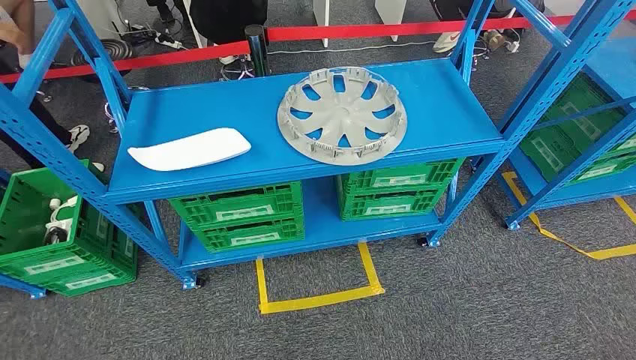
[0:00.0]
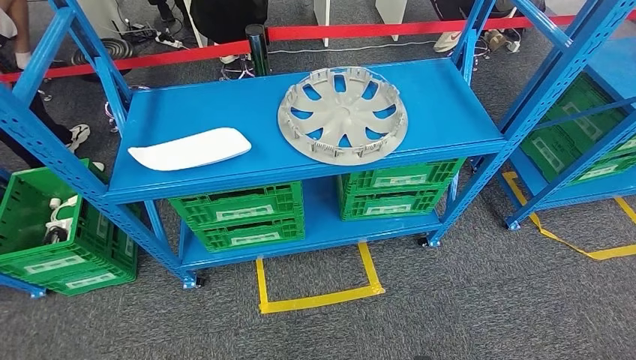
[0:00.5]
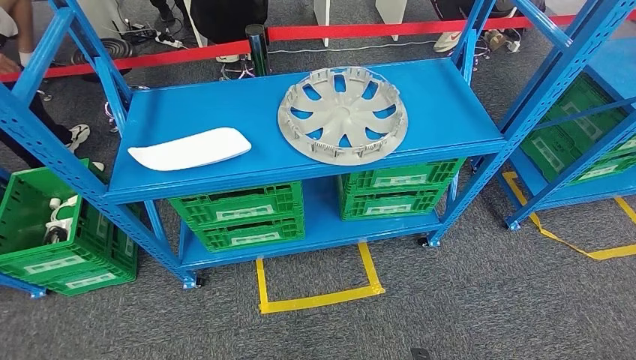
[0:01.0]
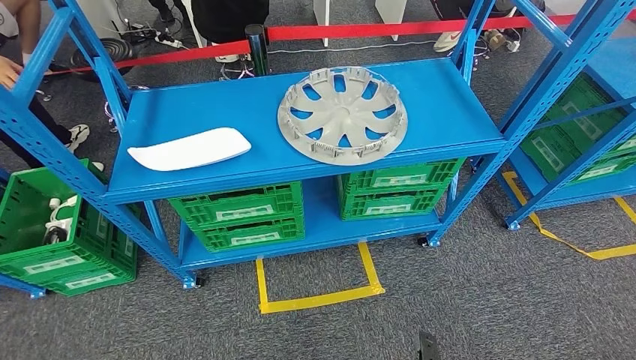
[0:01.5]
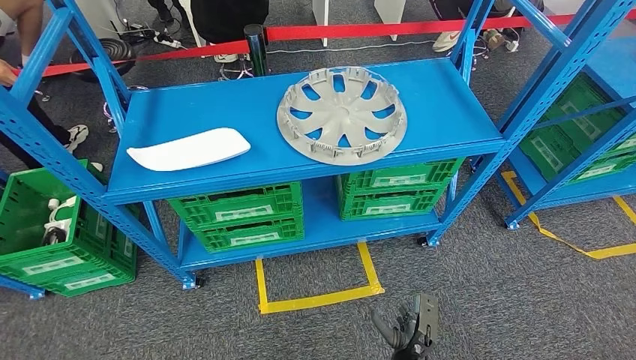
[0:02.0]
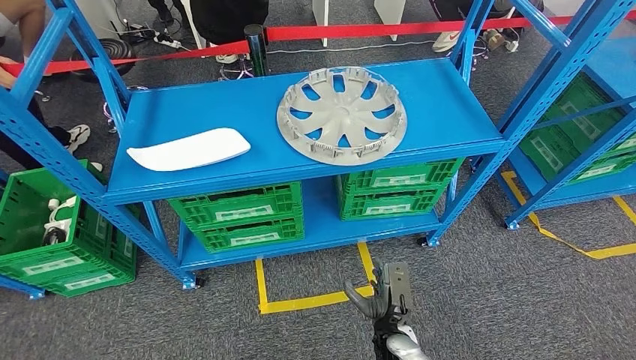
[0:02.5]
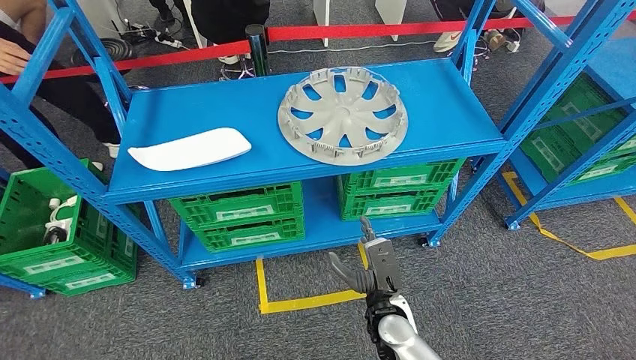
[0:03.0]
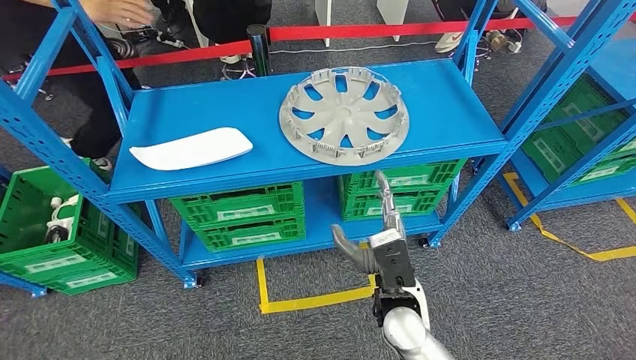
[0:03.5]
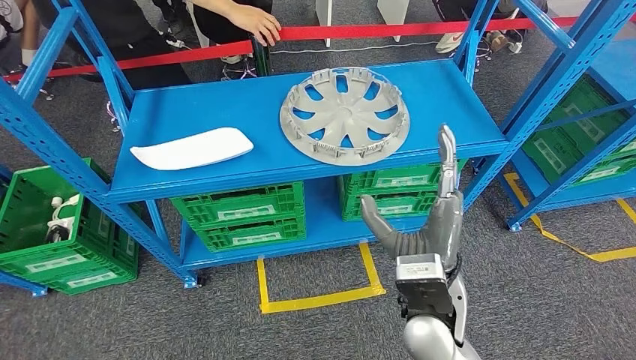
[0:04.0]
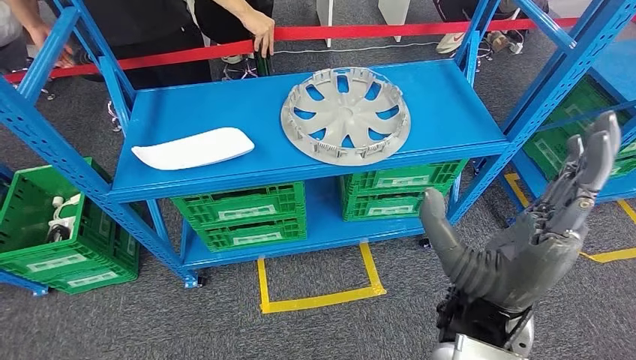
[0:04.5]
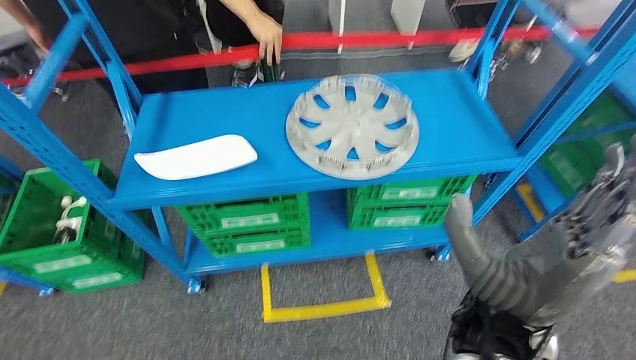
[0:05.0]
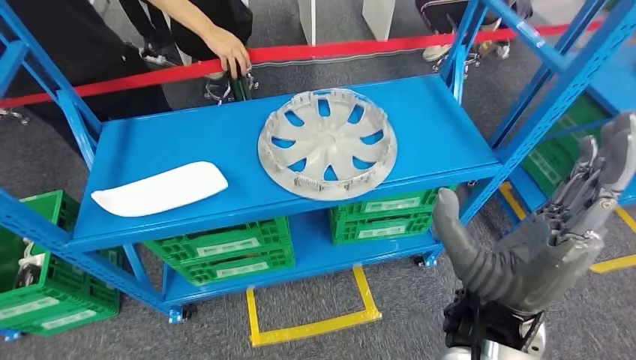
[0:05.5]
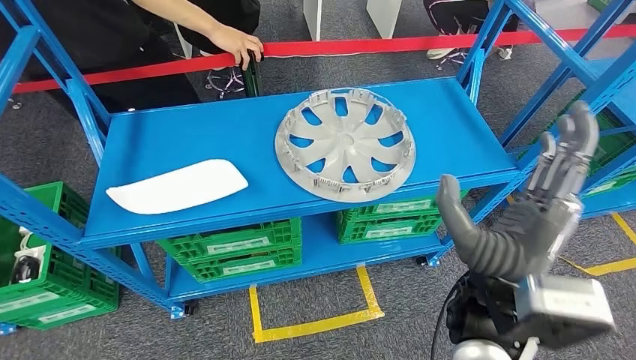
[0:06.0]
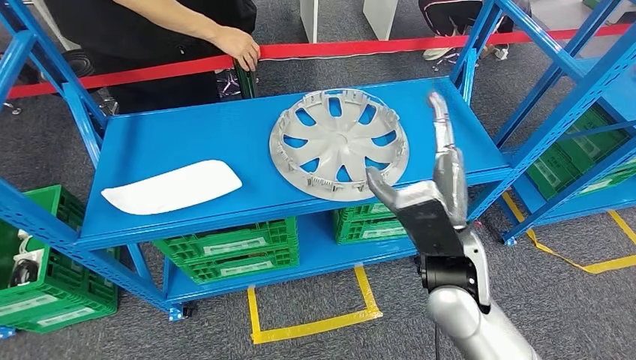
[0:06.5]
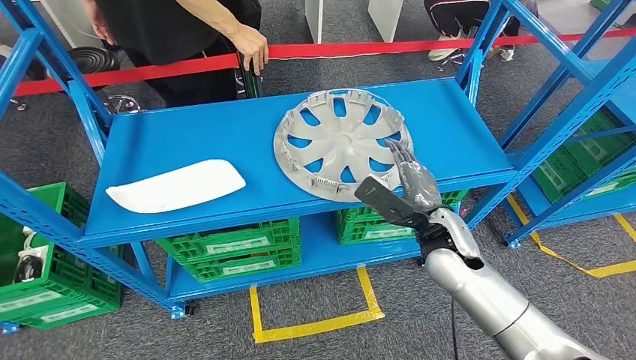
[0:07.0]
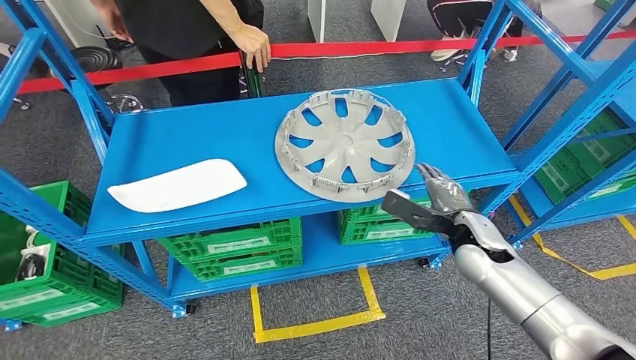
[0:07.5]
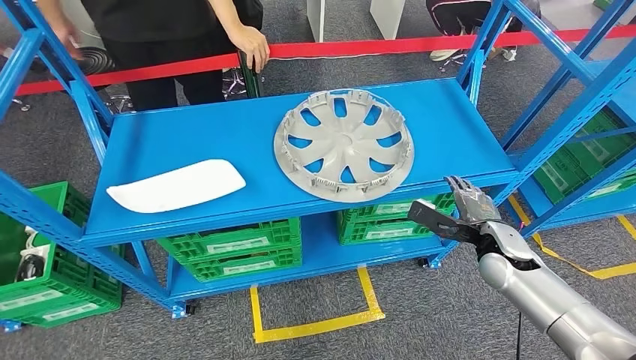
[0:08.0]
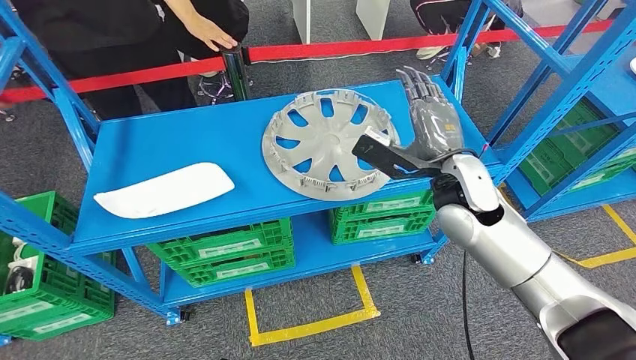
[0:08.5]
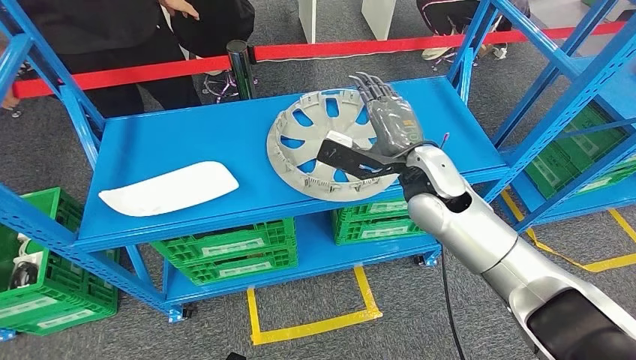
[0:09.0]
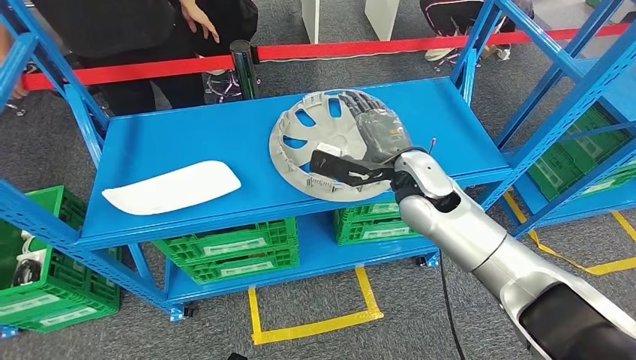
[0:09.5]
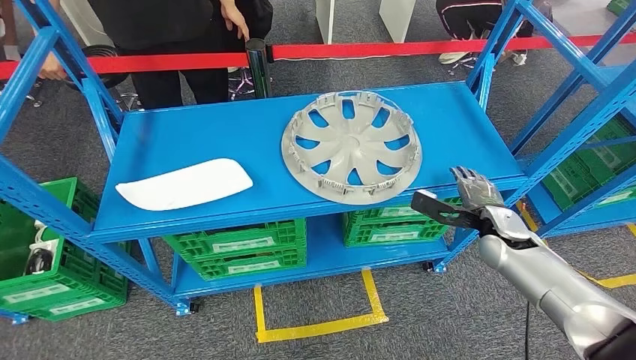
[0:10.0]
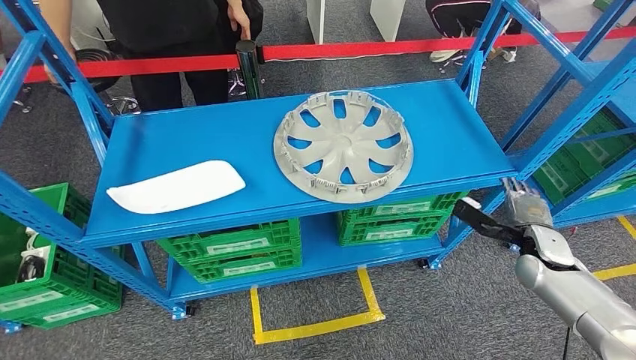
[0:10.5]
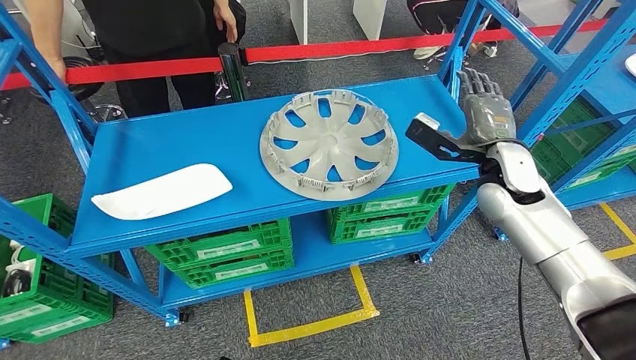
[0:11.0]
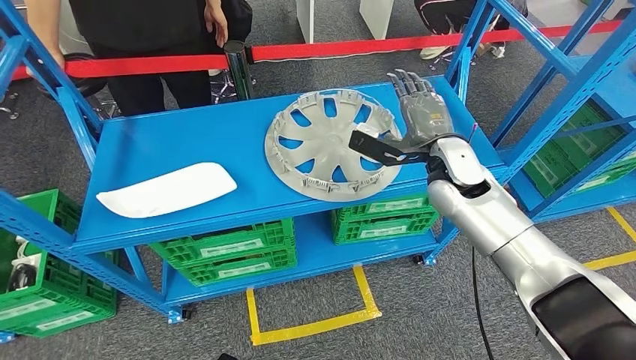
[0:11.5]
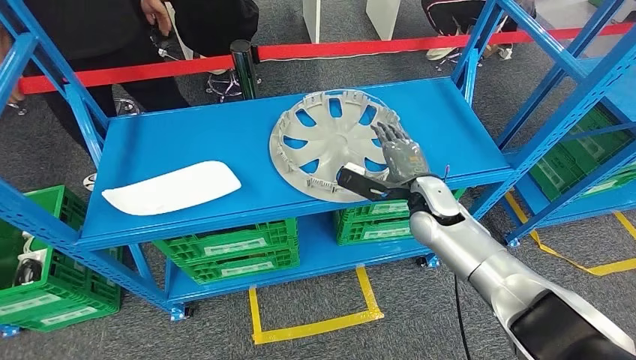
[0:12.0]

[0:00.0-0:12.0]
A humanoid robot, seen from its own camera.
0:02.0 to 0:04.0: The right hand moves upward, some 30 cm.

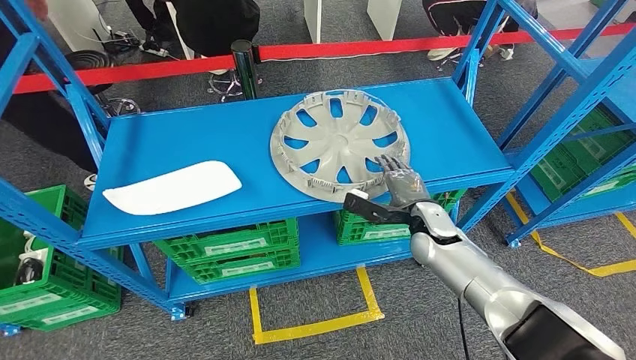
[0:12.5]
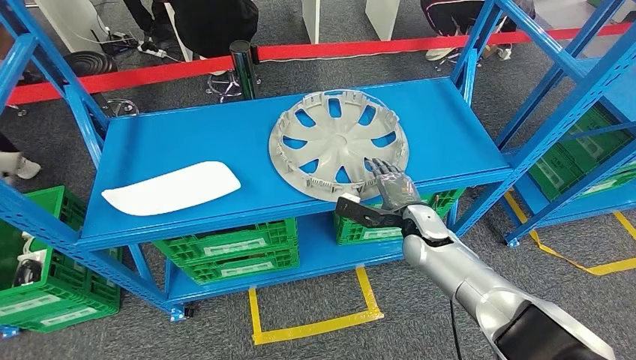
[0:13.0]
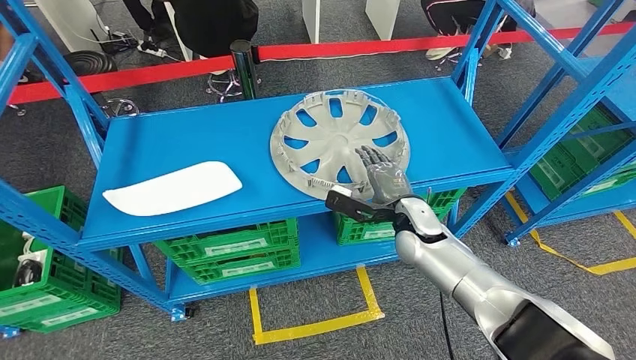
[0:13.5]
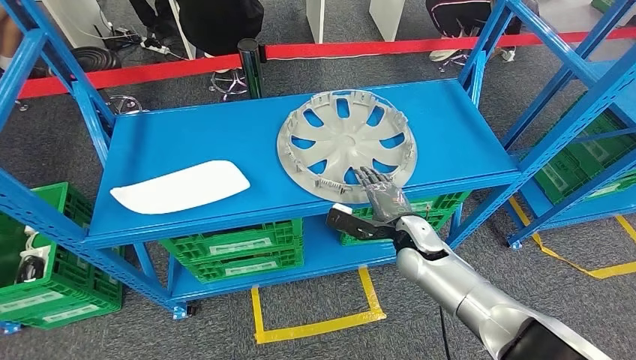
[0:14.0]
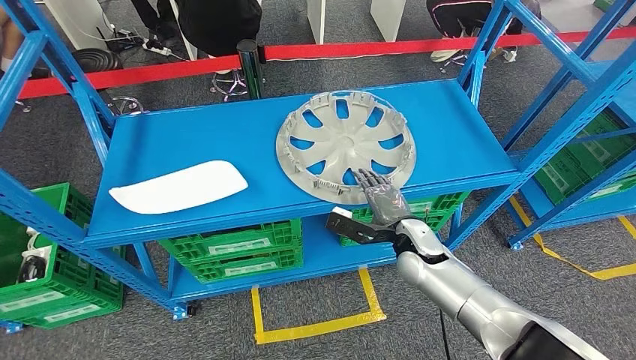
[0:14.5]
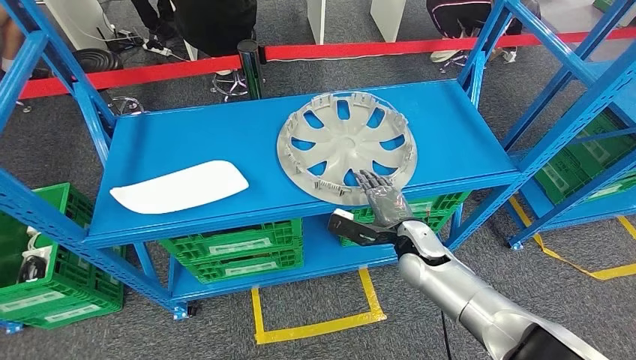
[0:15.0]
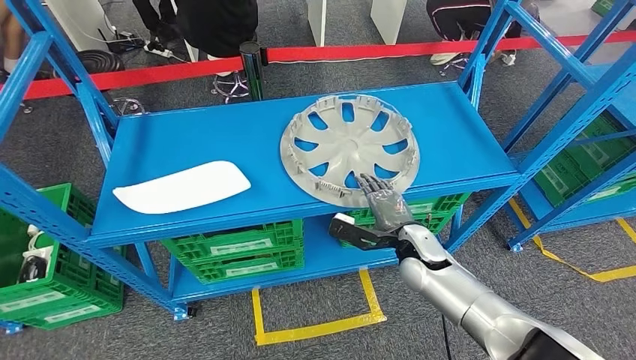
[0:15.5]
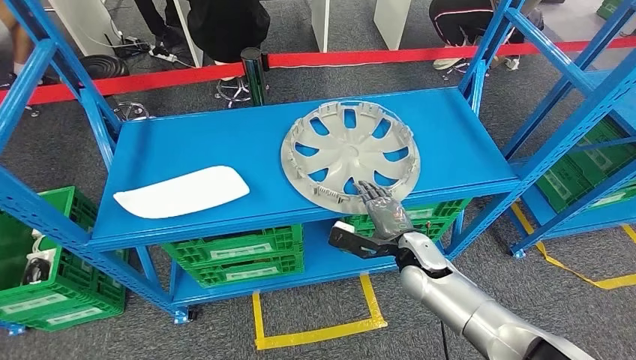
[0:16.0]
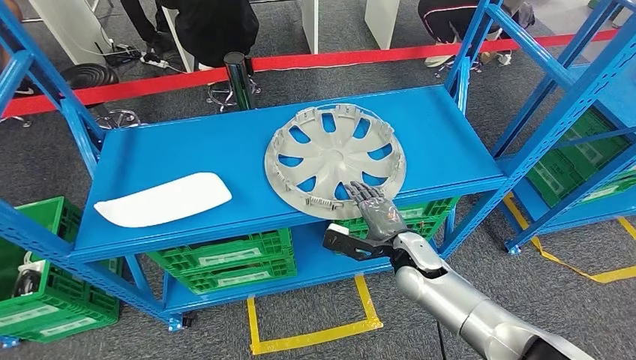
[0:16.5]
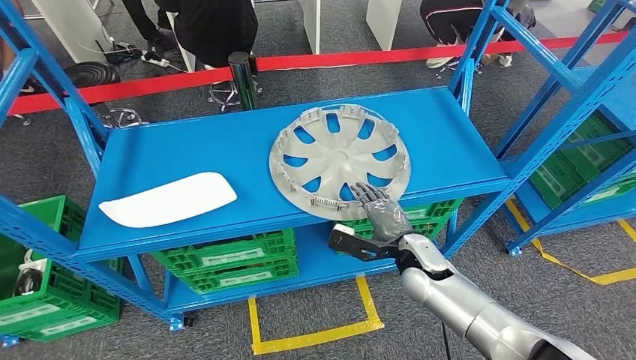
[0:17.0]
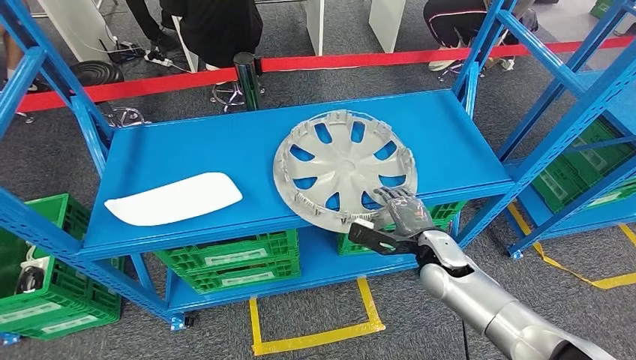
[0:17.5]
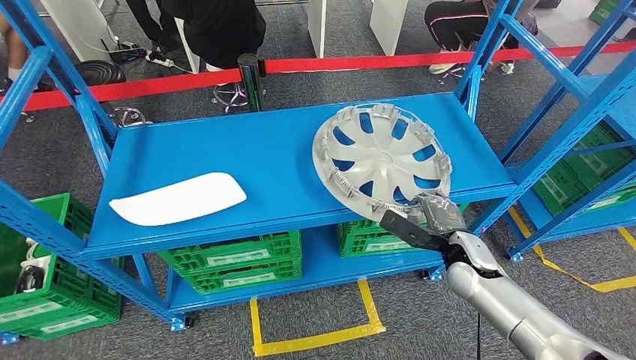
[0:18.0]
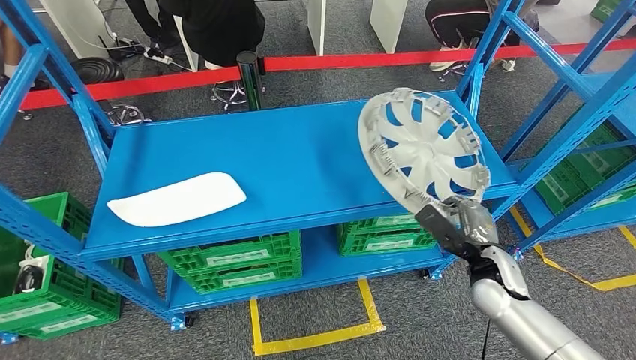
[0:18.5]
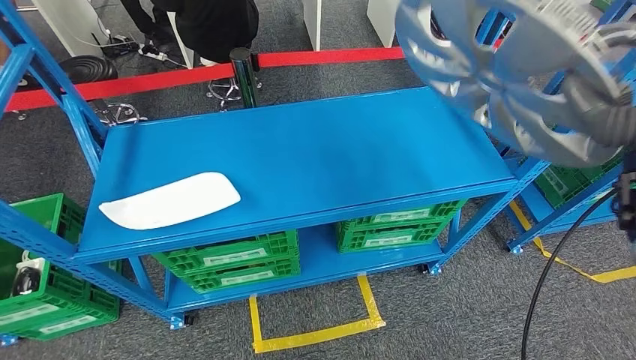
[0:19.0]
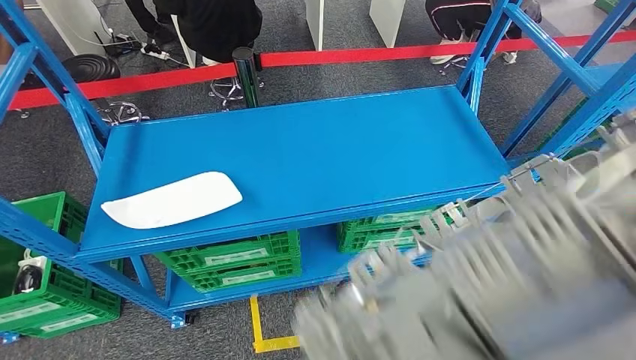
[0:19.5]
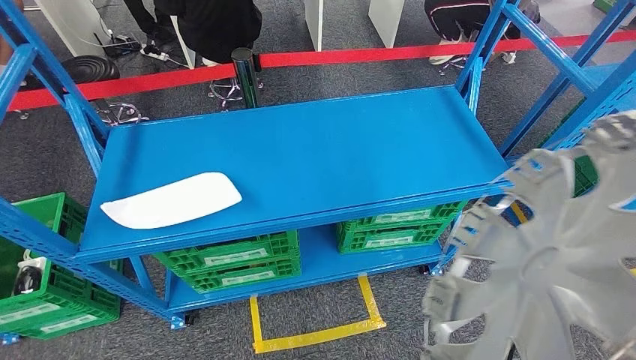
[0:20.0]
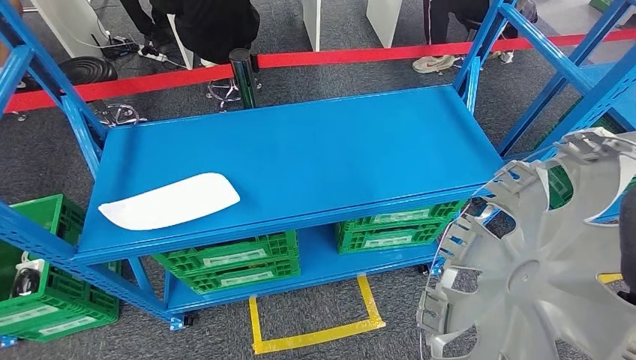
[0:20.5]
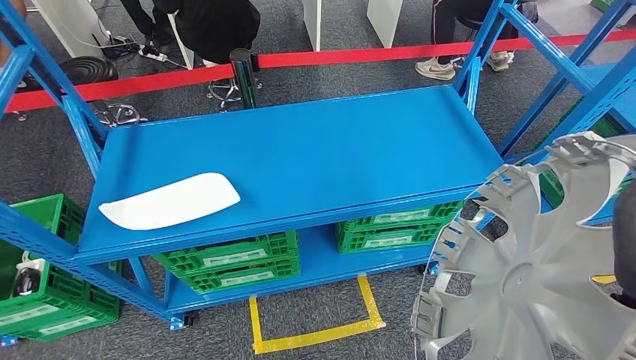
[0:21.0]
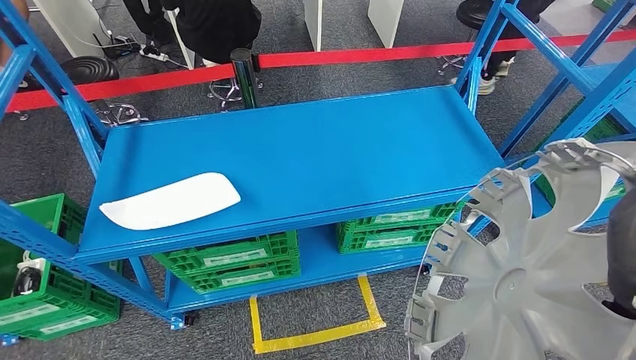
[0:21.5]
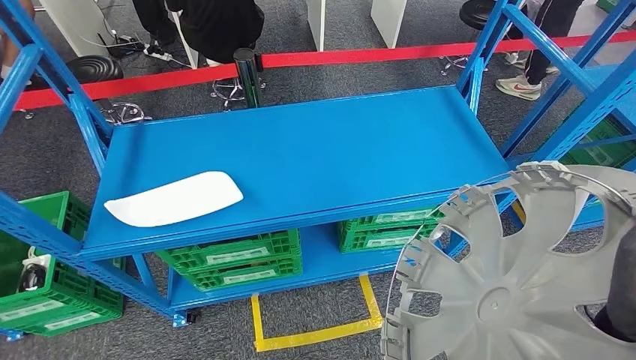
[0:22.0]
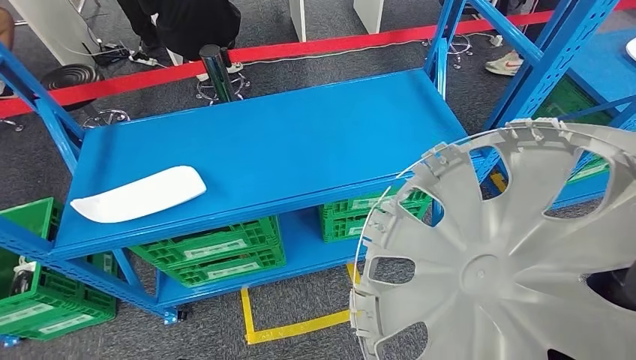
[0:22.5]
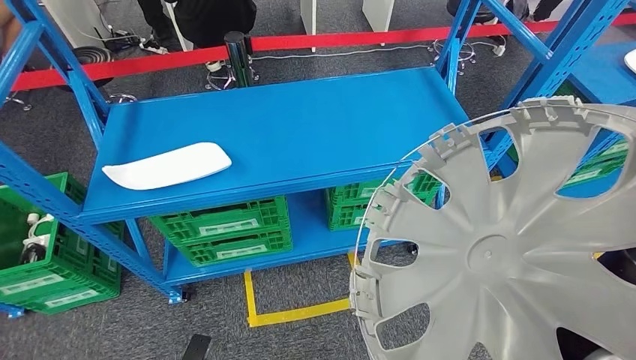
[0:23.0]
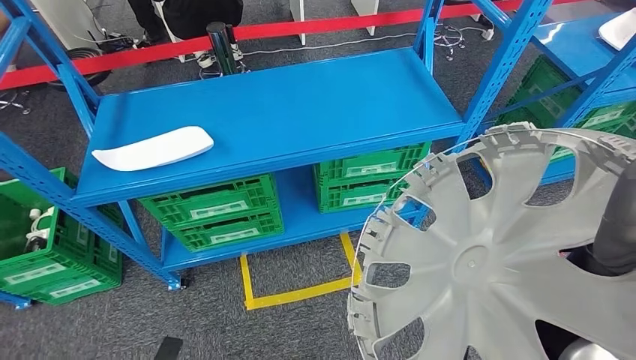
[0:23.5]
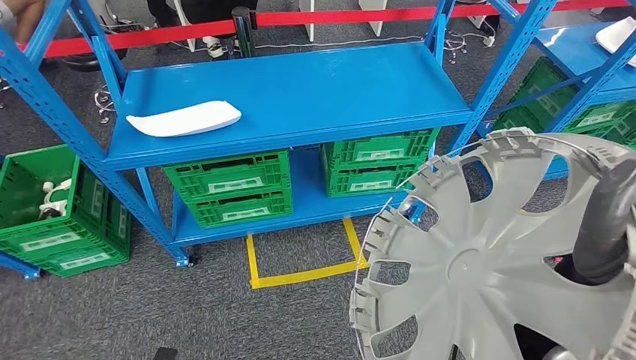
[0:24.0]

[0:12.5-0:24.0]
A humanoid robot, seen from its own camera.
Step, 0:12.5 to 0:19.0: Pick up the small component from the shelf.
